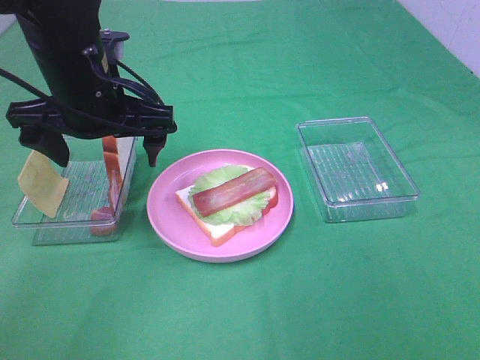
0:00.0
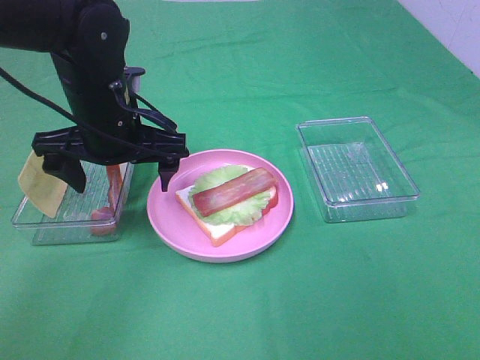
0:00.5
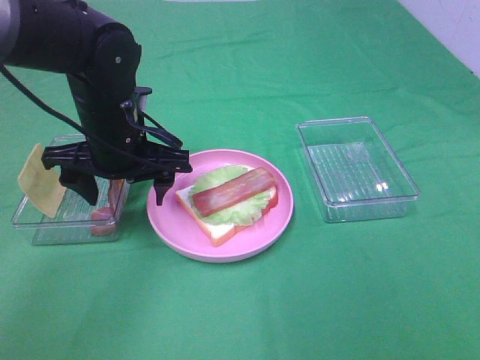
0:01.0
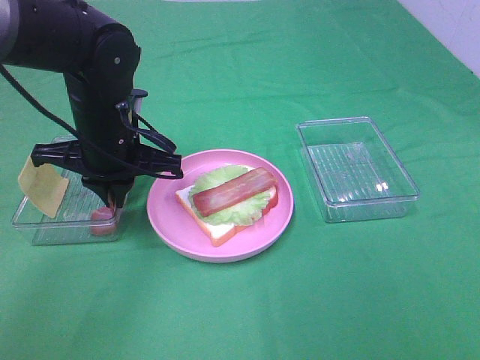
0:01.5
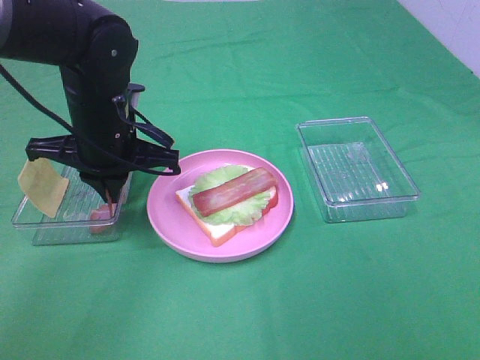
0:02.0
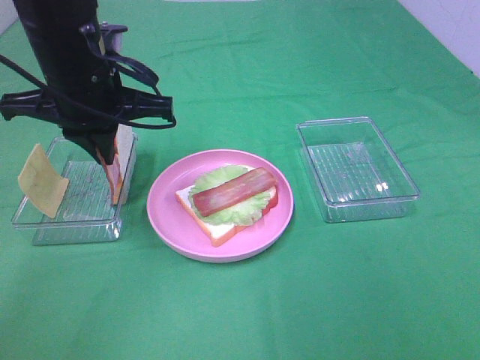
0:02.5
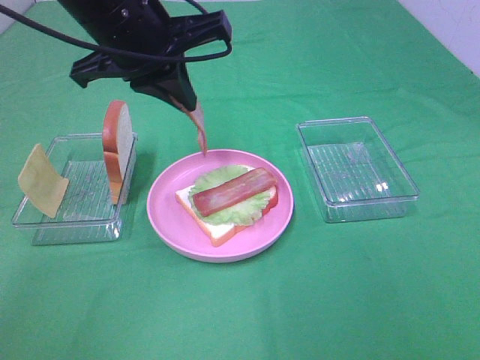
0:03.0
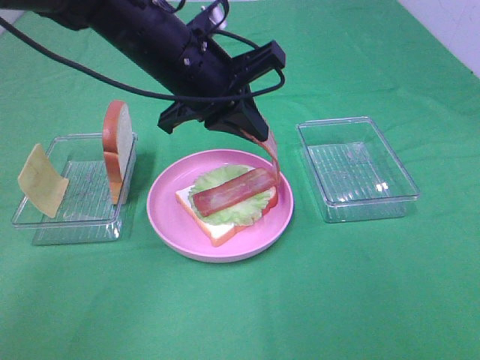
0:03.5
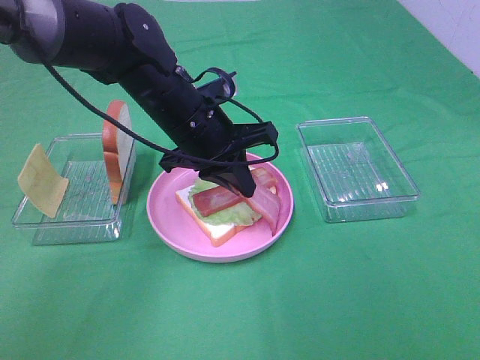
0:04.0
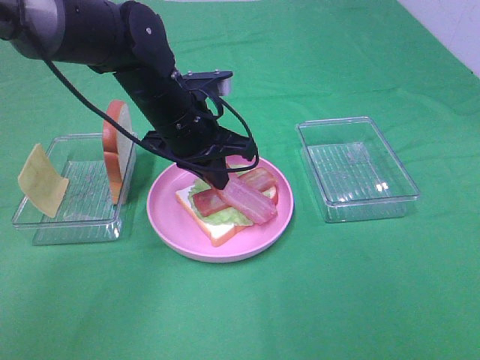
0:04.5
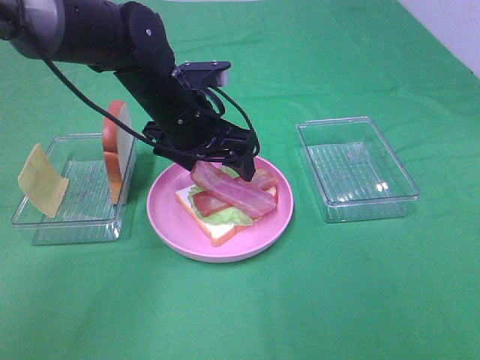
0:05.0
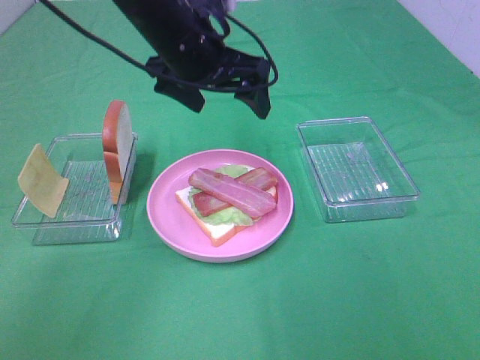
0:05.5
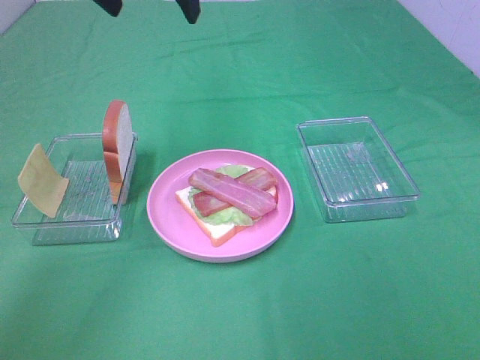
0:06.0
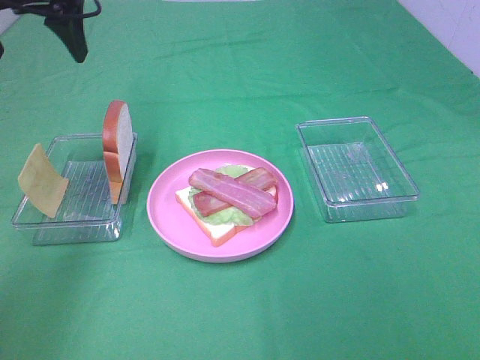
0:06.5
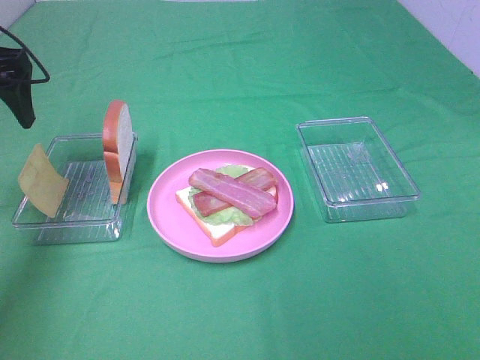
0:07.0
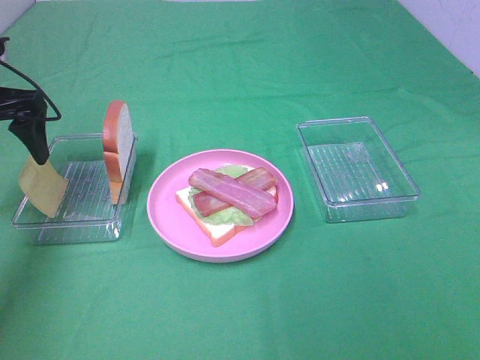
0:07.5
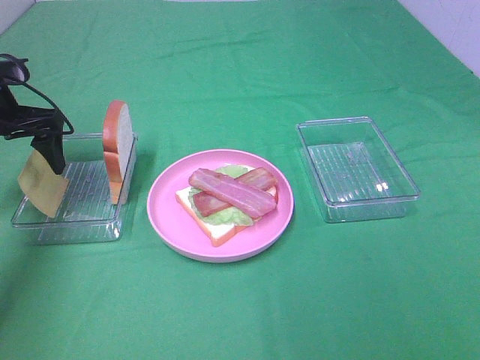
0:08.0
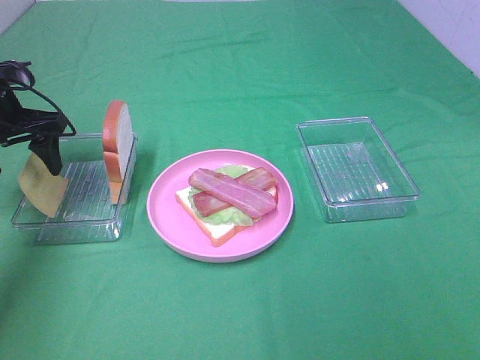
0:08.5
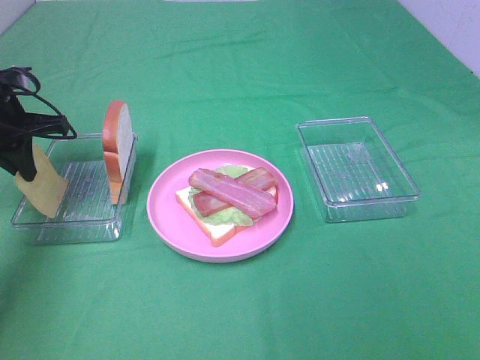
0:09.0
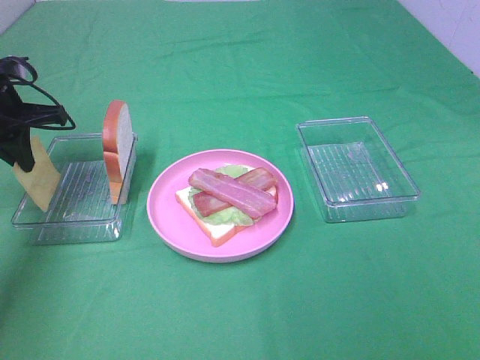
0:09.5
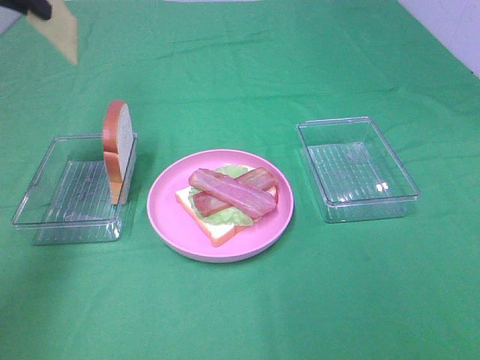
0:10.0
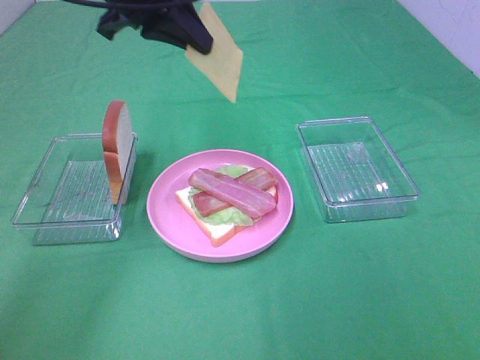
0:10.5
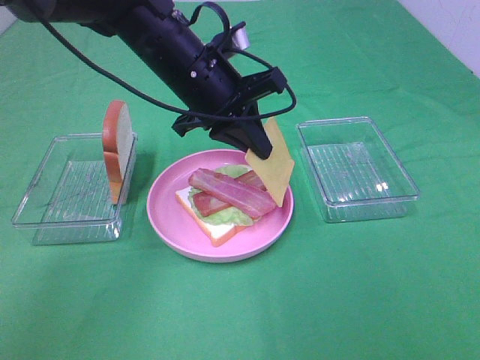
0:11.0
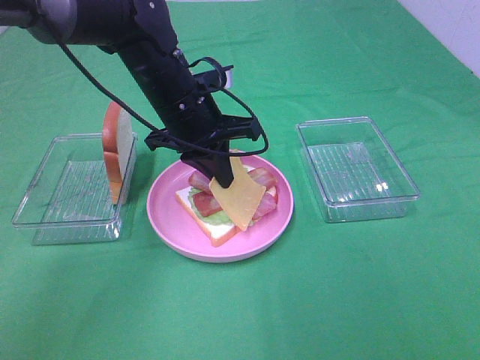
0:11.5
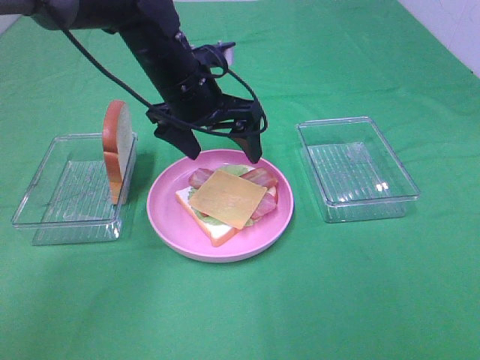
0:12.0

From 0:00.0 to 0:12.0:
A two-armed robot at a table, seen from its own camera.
Task of the whole recording: Make sandwiches.
Step, from 0:02.0 to 0:05.0: Left hand:place bacon on bacon.
Step, from 0:05.5 to 0:09.0: Left hand:grab the cheese slice.
Step, from 0:09.5 to 0:11.5: Left hand:place the cheese slice on top of the bacon.
From 0:00.0 to 0:02.0: The left gripper closes its fingers.
From 0:02.0 to 0:04.0: The left gripper travels to the right by some 10 cm, and travels upward and back again, about 10 cm each way.
From 0:04.0 to 0:06.0: The left gripper moves upward, approximately 20 cm, and opens.
From 0:06.0 to 0:08.0: The left gripper shifts approximately 25 cm downward and to the left.
From 0:08.0 to 0:10.0: The left gripper shifts some 15 cm upward, and closes.
From 0:10.0 to 0:12.0: The left gripper travels to the right and downward by approximately 25 cm, and opens its fingers.

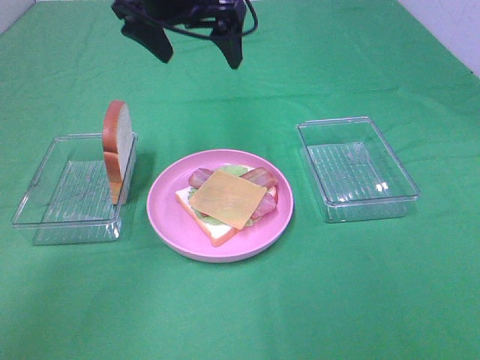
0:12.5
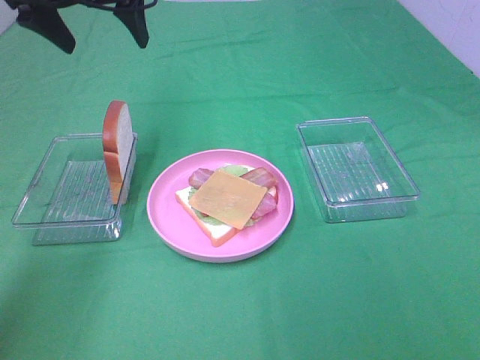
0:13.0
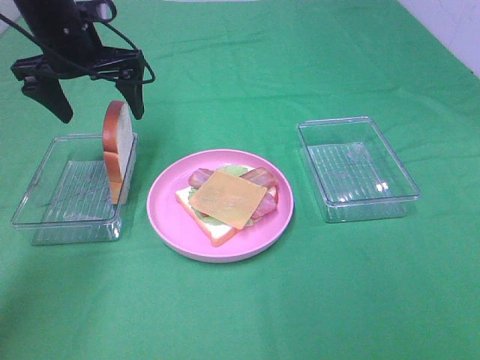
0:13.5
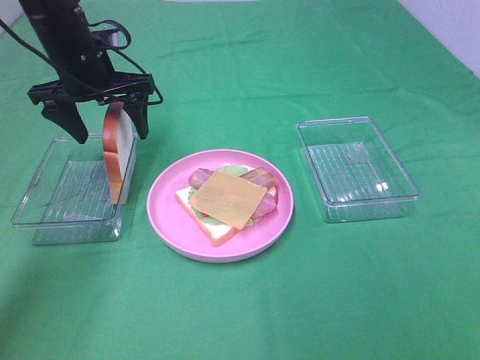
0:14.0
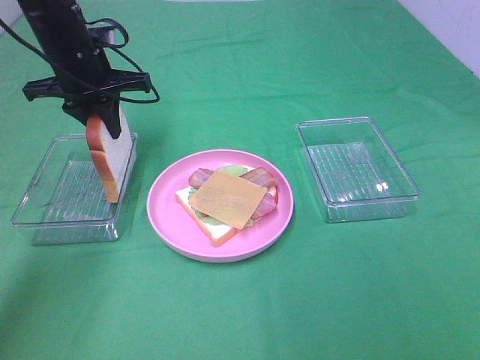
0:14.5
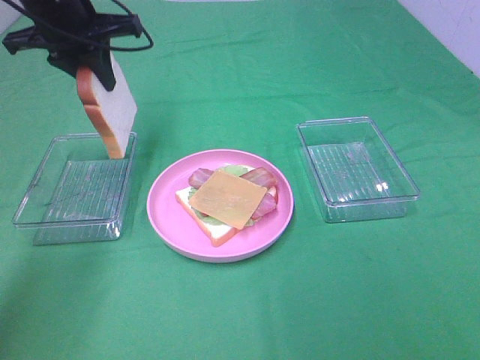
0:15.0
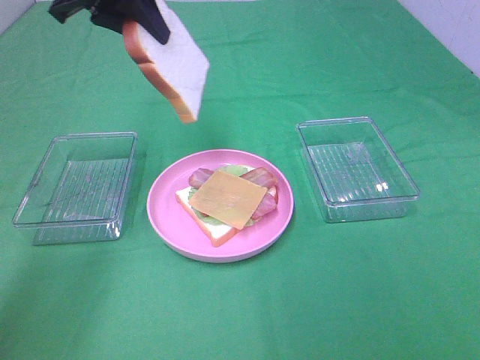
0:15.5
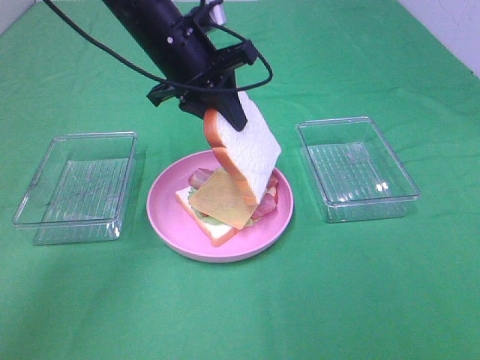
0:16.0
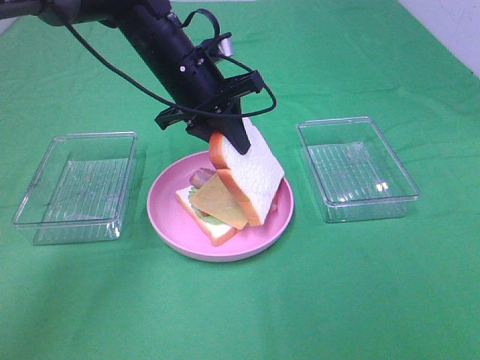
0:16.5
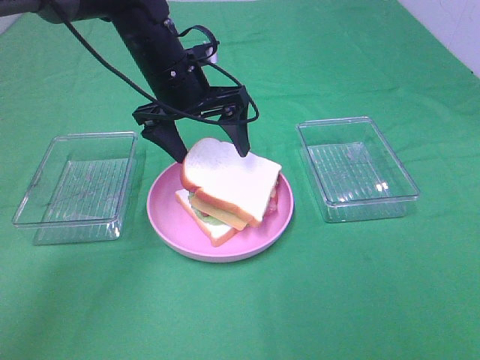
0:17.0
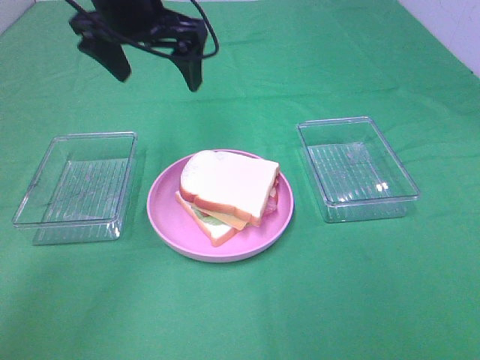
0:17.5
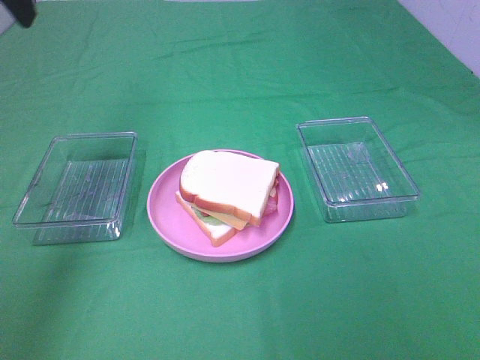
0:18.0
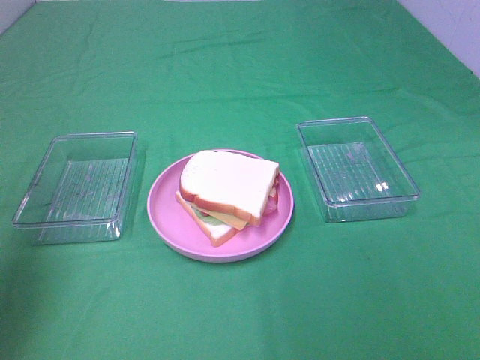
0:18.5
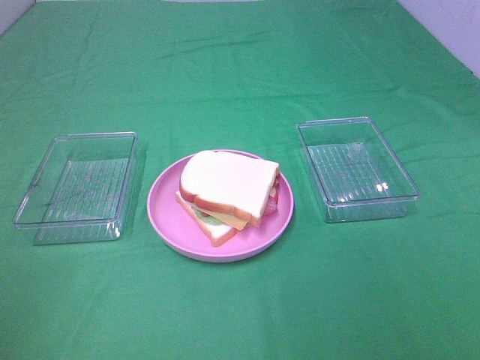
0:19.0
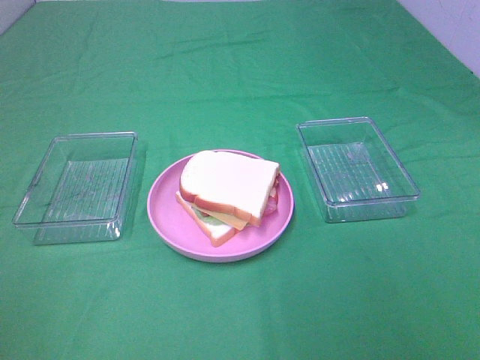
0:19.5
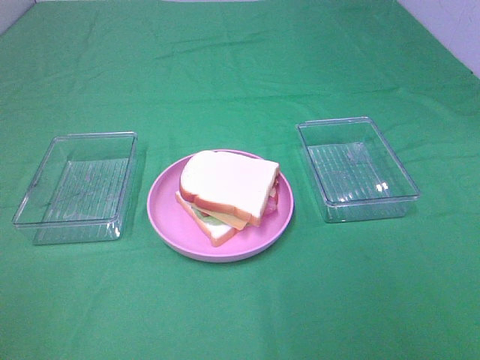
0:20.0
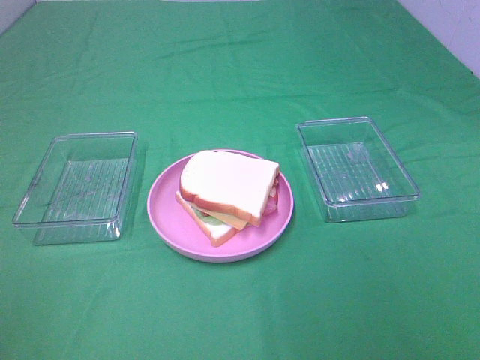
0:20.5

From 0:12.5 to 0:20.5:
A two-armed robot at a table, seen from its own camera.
Task of the whole recording: Make sandwiches.
Step, from 0:12.5 to 0:14.0: Left hand:grab the bread slice.
Step, from 0:14.5 to 0:17.0: Left hand:place the bread slice on the cheese slice.
From 0:12.5 to 0:14.5: The left gripper goes approximately 15 cm downward and to the left, and closes its fingers.
From 0:14.5 to 0:16.5: The left gripper moves to the right, approximately 15 cm.
From 0:16.5 to 0:18.5: The left gripper shifts about 40 cm to the left, backward and upward, and opens up.
From 0:18.5 to 0:20.5: The left gripper goes roughly 20 cm backward.

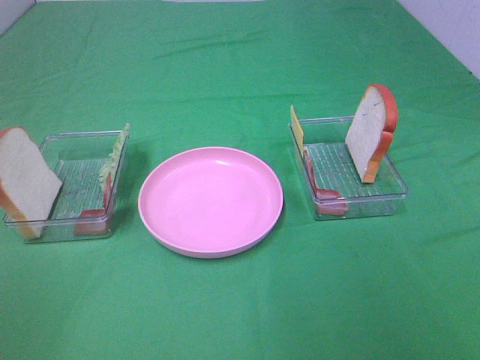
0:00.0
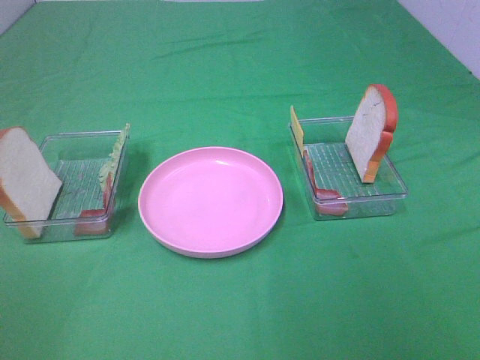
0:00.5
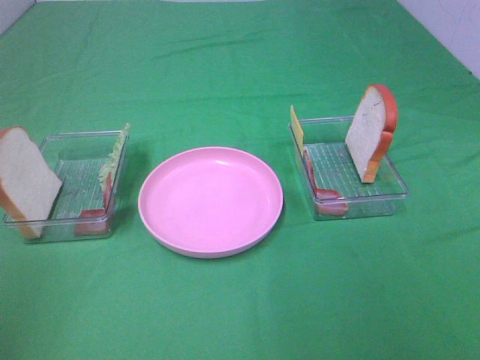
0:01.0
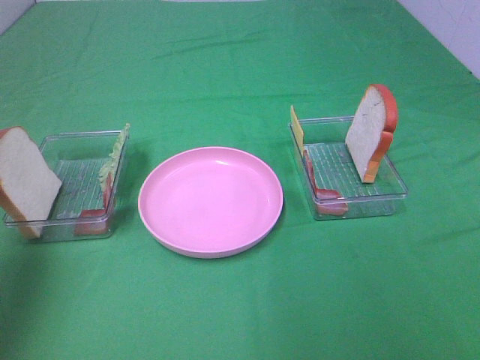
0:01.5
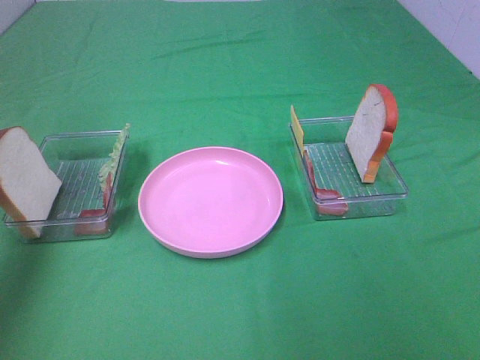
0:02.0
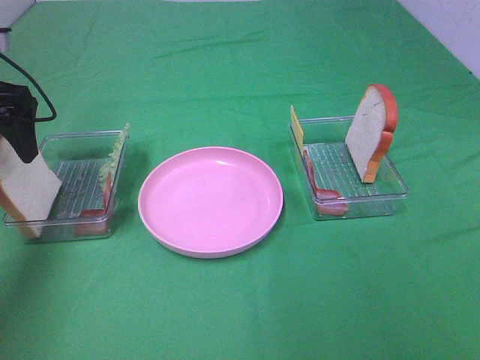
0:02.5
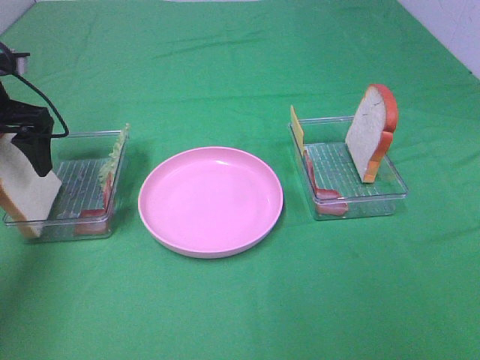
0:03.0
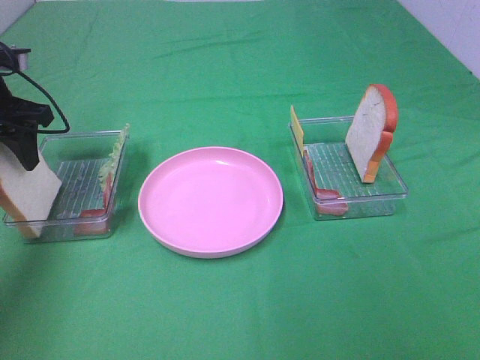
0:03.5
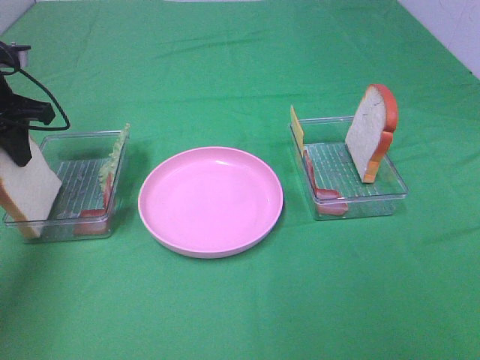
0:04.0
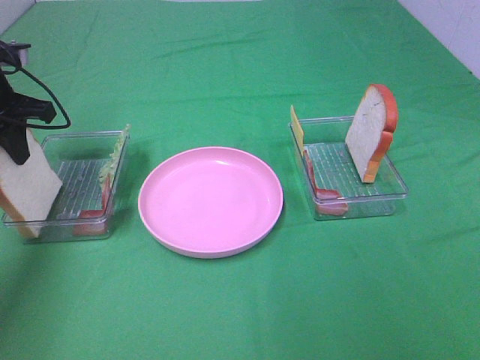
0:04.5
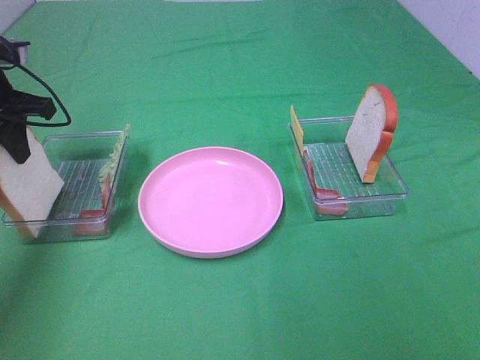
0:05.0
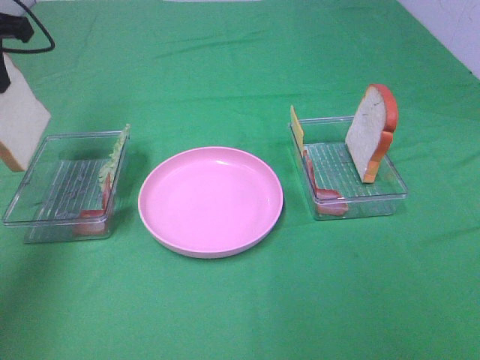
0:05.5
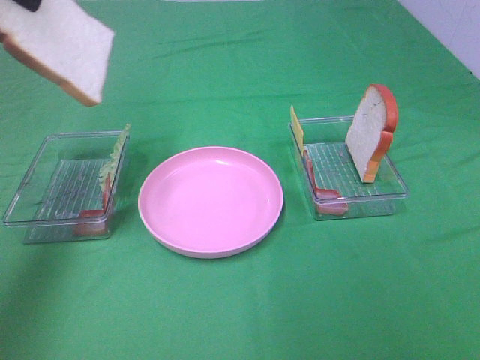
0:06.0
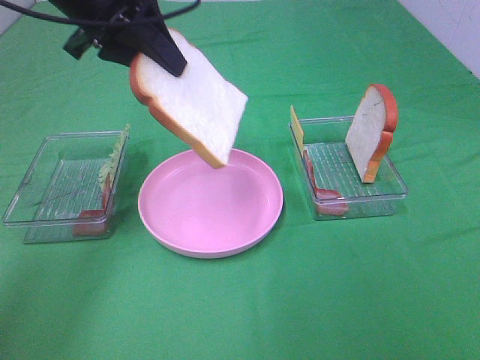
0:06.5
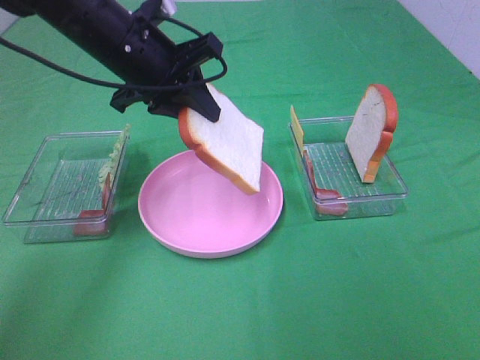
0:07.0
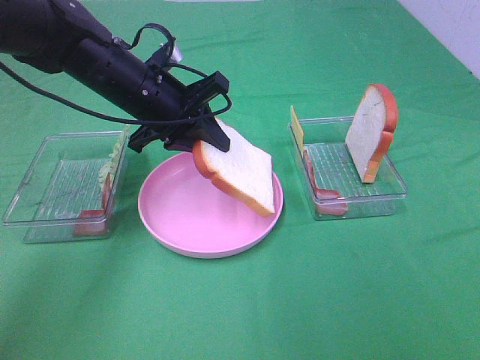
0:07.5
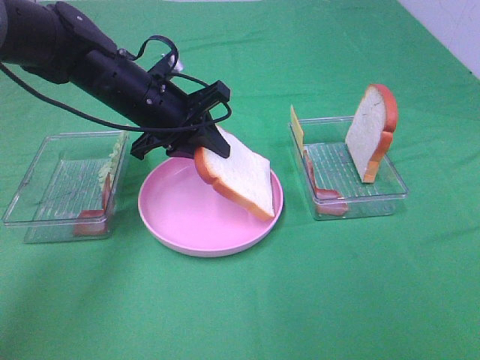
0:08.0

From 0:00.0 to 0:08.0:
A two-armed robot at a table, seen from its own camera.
Task of the whole recording: Make sandwiches.
Step, from 0:00.0 to 0:04.5: Left hand:grab the bread slice.
From 0:00.0 to 0:02.0: The left gripper moves forward, about 35 cm.
From 0:02.0 to 0:04.0: The left gripper travels downward and forward by about 15 cm, and closes up.
From 0:04.0 to 0:06.0: The left gripper goes roughly 20 cm upward.
From 0:06.0 to 0:08.0: The left gripper travels downward and to the right by some 25 cm.
